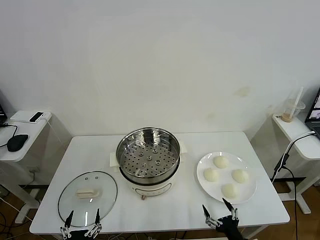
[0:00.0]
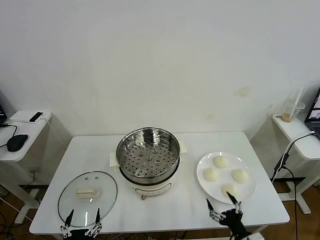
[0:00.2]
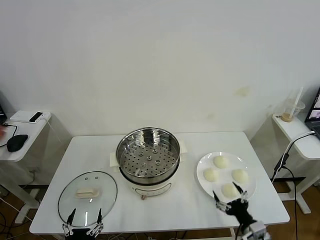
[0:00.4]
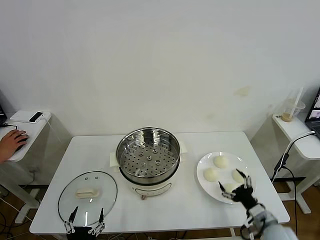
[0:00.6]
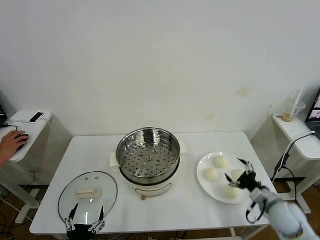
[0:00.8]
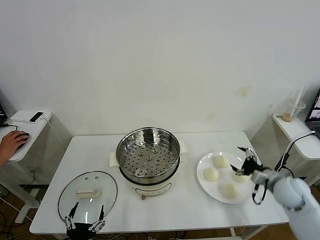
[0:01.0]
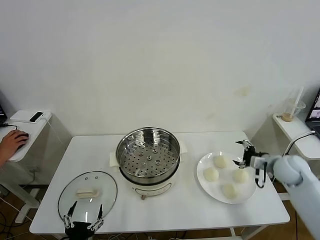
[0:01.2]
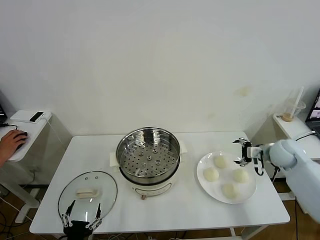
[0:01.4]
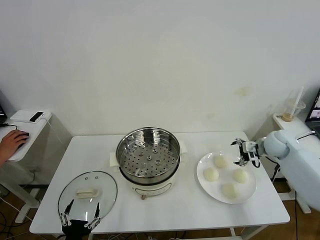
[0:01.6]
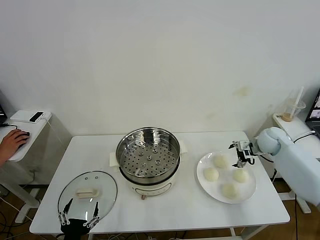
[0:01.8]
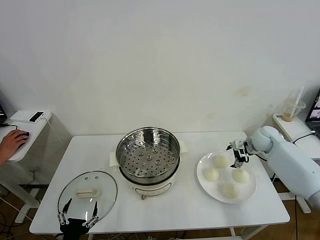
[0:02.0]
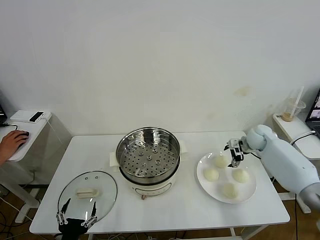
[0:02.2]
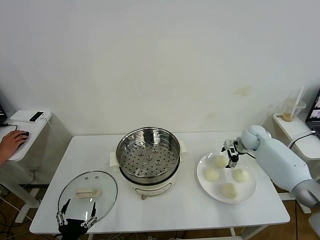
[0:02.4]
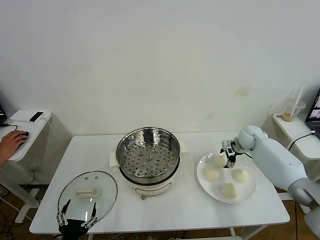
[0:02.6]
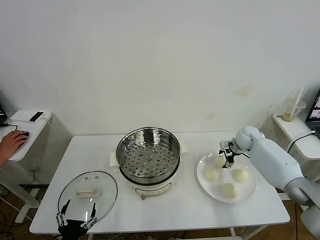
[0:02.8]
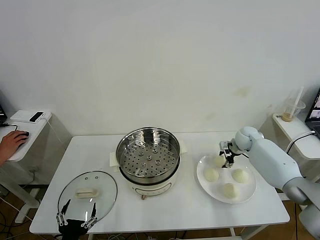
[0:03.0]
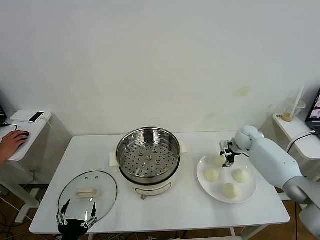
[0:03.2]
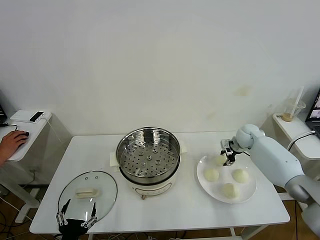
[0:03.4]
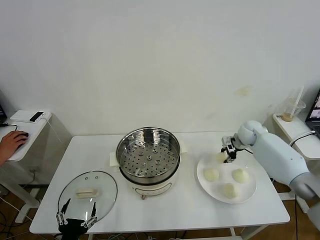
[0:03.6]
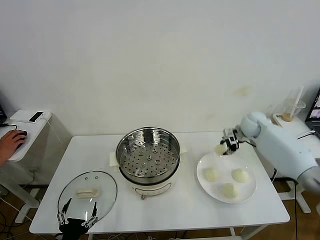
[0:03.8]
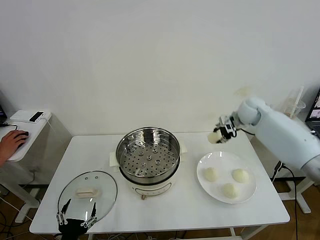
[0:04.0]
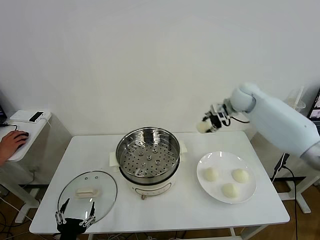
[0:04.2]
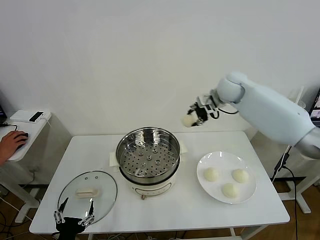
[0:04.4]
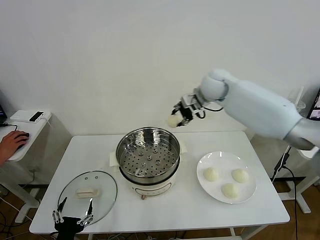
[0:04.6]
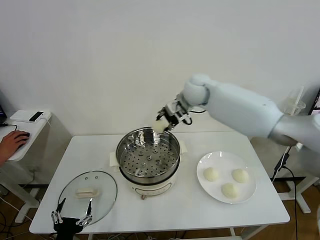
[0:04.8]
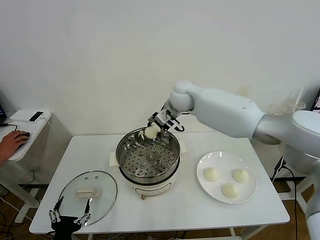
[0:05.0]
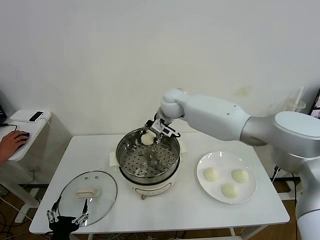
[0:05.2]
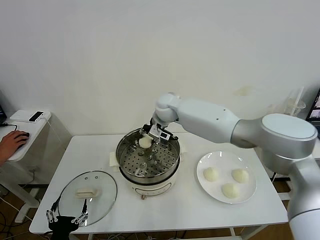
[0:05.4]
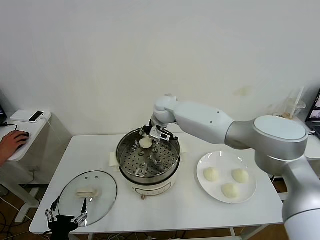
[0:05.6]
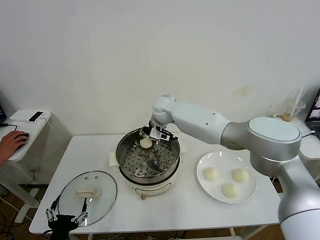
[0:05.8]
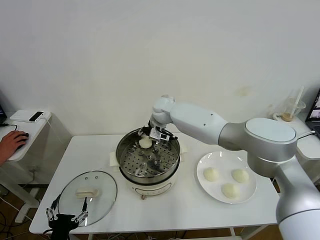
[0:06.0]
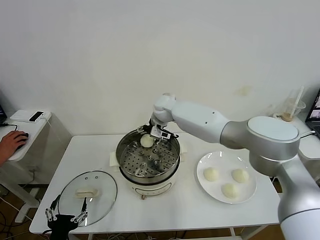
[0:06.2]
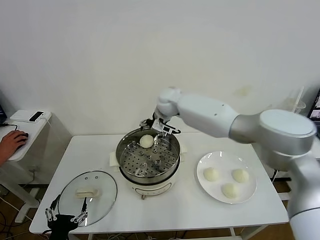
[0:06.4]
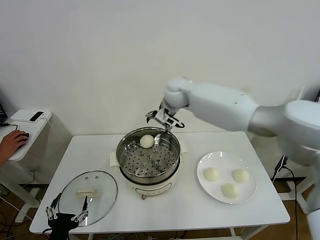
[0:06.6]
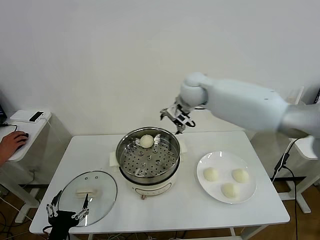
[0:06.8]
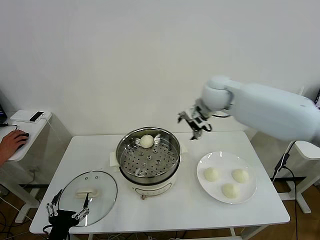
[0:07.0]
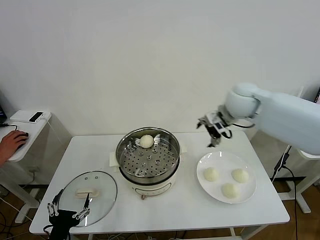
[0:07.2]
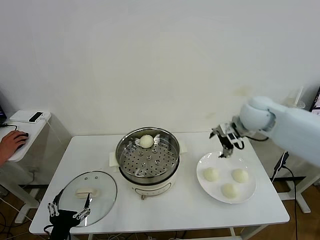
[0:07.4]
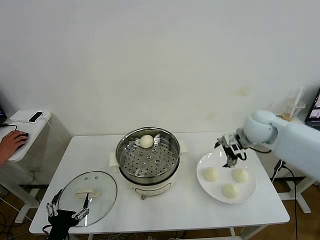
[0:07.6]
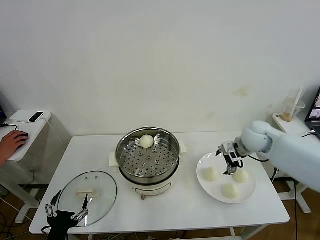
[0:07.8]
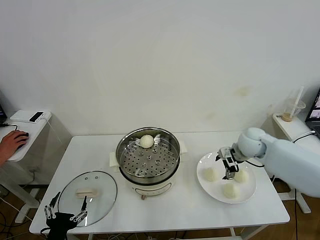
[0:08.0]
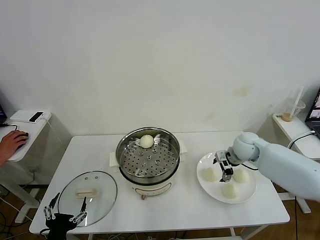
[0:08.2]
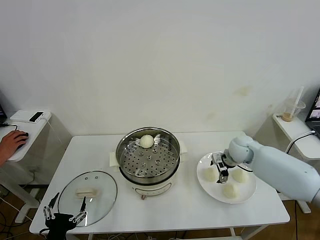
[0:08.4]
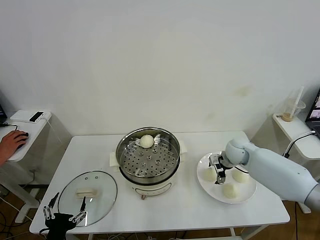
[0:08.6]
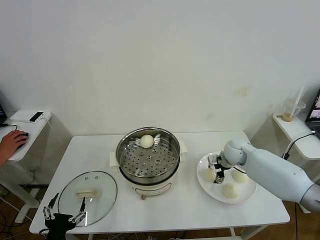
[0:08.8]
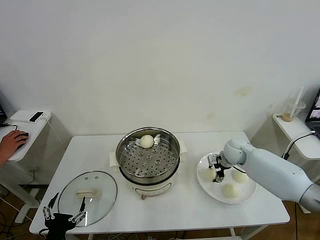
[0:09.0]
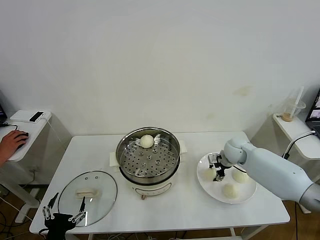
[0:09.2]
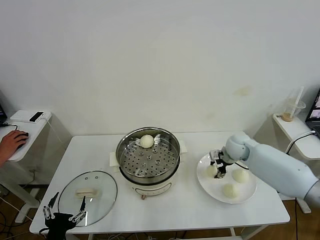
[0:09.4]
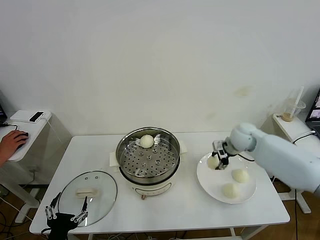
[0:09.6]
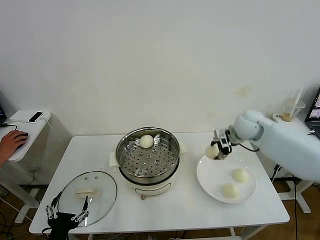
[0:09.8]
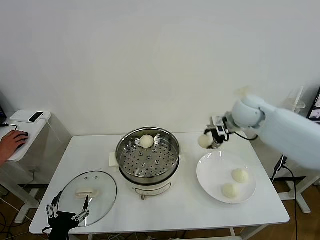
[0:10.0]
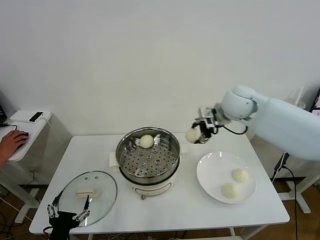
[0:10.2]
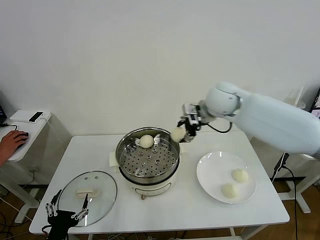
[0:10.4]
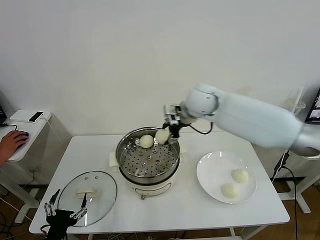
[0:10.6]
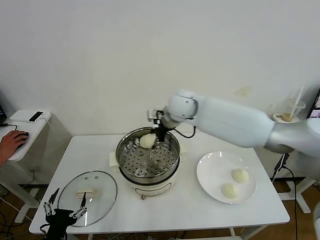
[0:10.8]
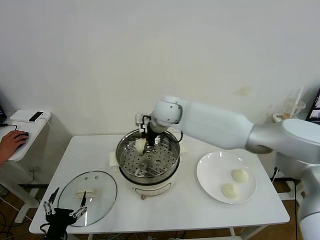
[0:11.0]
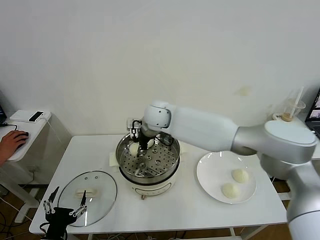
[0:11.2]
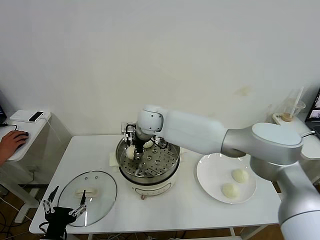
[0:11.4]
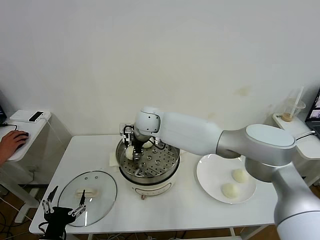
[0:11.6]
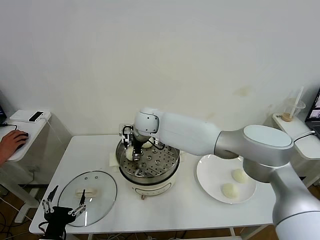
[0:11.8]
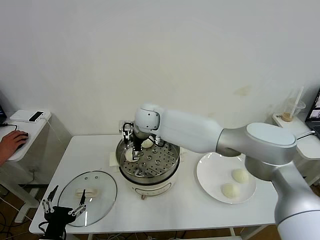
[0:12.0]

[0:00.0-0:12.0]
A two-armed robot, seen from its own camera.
Task of the whole recording: take steamed baozi put them in steamer then cover it.
Step, 0:00.0 to 0:03.0: Grasp the baozi in the plate with right gripper.
Step, 0:03.2 to 0:06.2: Place the baozi on the steamer with right gripper.
Step, 0:06.4 to 0:09.2: Grasp the baozi in the plate with right gripper.
0:01.6 to 0:03.0: The right gripper goes some 10 cm forward, downward and to the left, and closes up.
0:03.0 to 0:04.4: The right gripper goes some 25 cm upward and to the left, and closes its fingers.
0:04.4 to 0:06.0: The right gripper is displaced to the left and downward by roughly 25 cm.
0:06.0 to 0:07.6: The right gripper is displaced to the right and backward by about 30 cm, and opens.
0:07.6 to 0:09.0: The right gripper is displaced downward by roughly 15 cm, and closes.
0:09.0 to 0:10.4: The right gripper travels upward and to the left by roughly 25 cm.
0:10.4 to 0:12.0: The right gripper is displaced to the left and downward by roughly 25 cm, and opens.

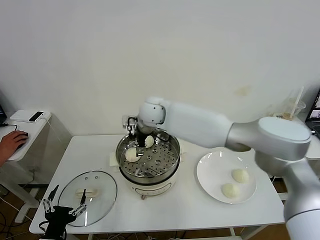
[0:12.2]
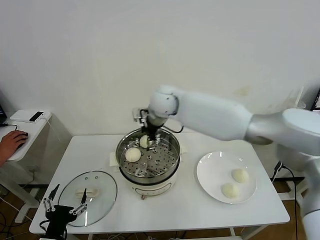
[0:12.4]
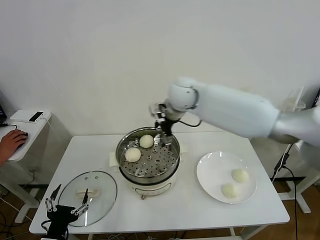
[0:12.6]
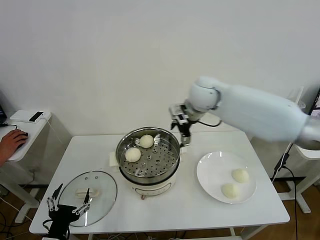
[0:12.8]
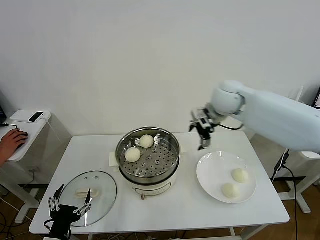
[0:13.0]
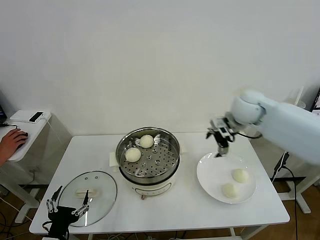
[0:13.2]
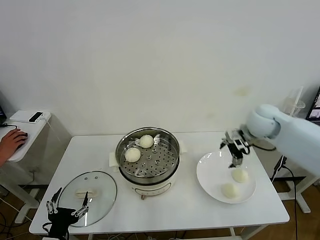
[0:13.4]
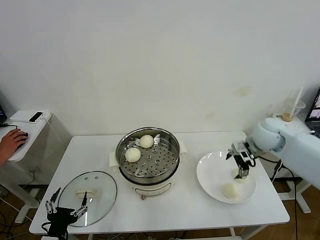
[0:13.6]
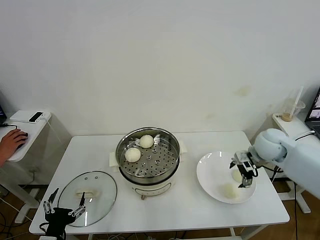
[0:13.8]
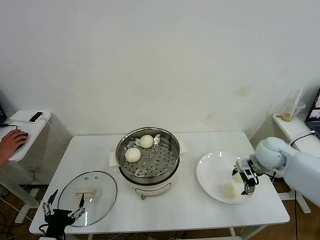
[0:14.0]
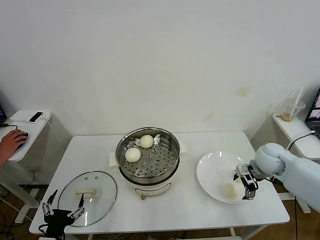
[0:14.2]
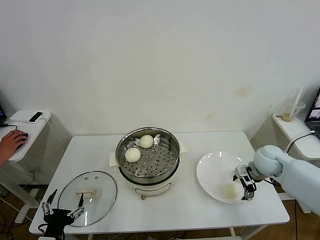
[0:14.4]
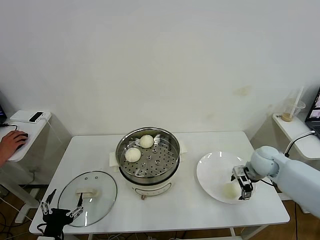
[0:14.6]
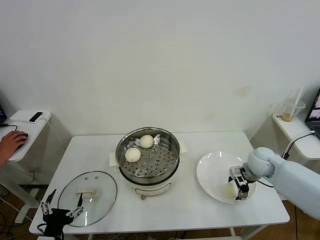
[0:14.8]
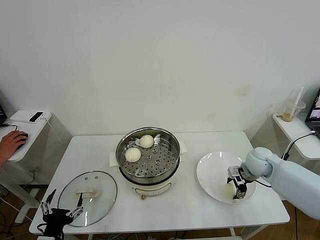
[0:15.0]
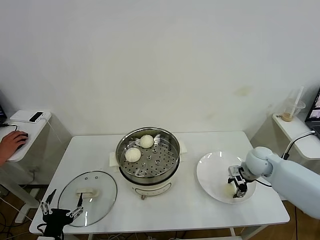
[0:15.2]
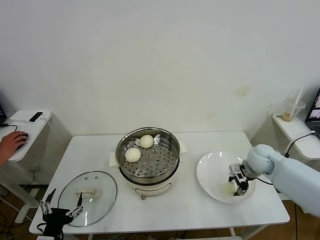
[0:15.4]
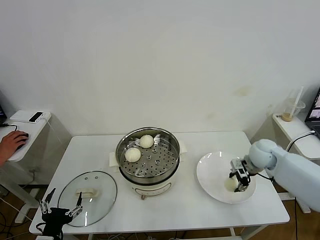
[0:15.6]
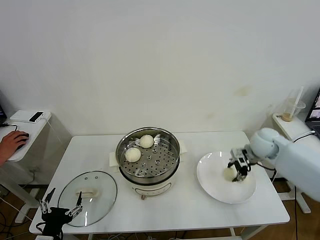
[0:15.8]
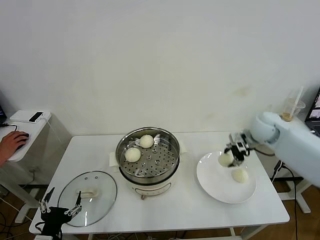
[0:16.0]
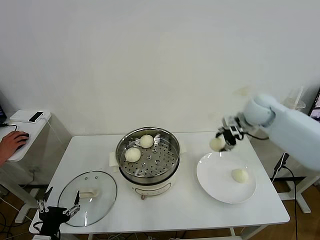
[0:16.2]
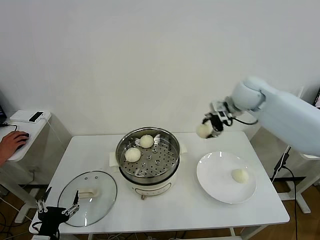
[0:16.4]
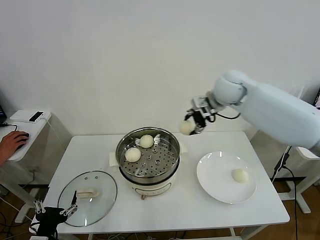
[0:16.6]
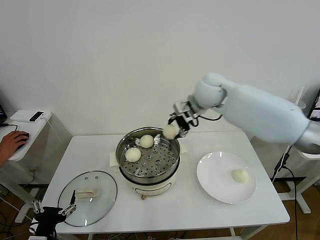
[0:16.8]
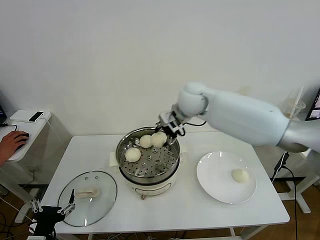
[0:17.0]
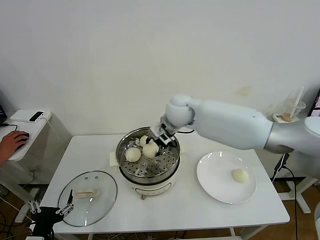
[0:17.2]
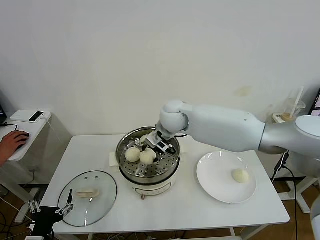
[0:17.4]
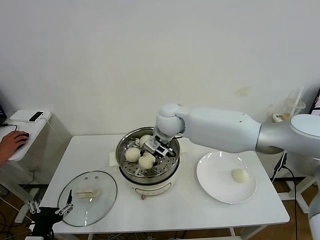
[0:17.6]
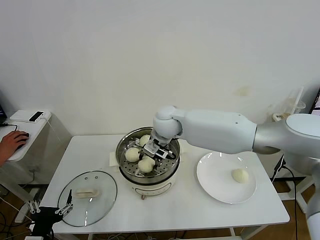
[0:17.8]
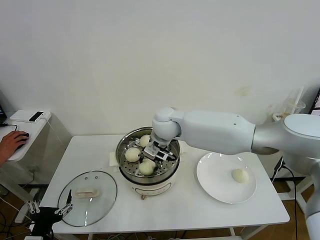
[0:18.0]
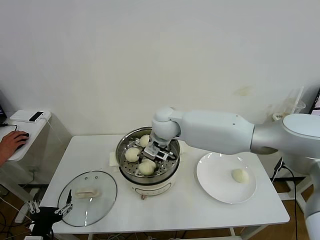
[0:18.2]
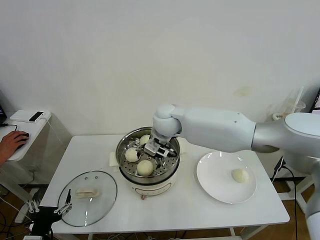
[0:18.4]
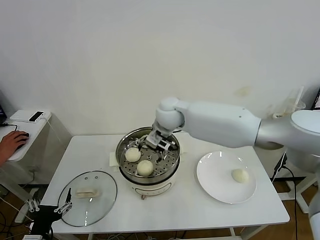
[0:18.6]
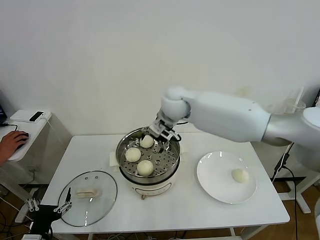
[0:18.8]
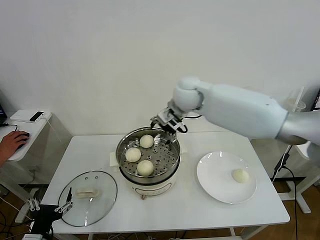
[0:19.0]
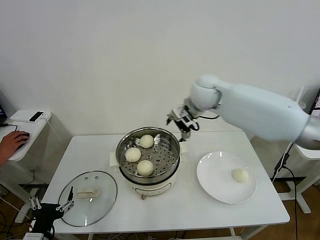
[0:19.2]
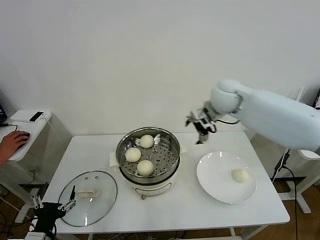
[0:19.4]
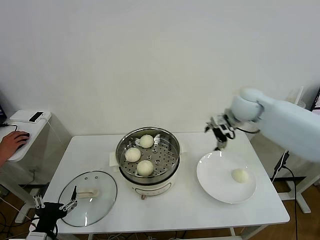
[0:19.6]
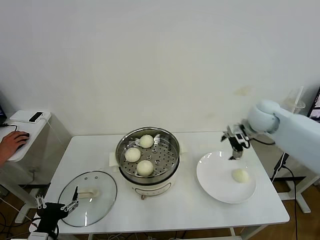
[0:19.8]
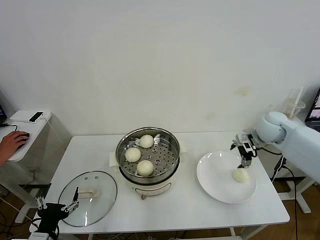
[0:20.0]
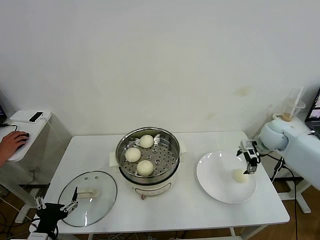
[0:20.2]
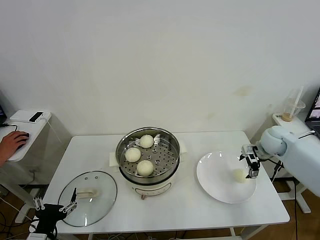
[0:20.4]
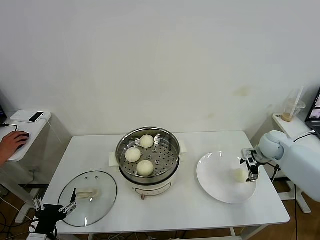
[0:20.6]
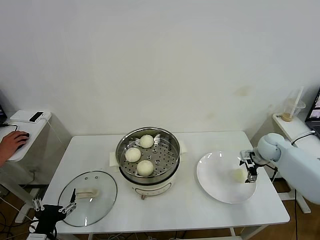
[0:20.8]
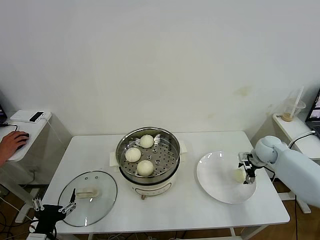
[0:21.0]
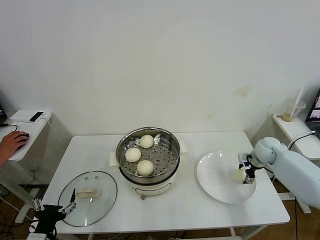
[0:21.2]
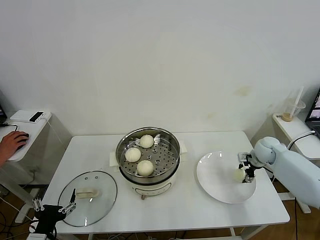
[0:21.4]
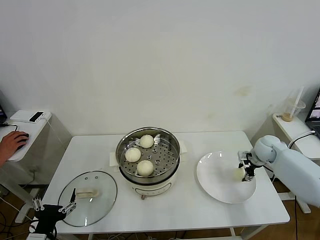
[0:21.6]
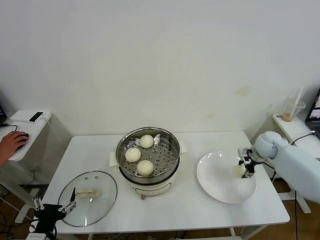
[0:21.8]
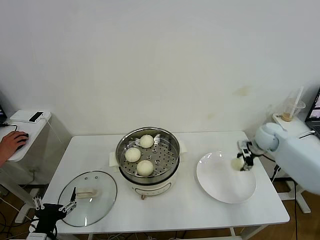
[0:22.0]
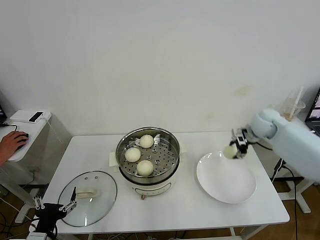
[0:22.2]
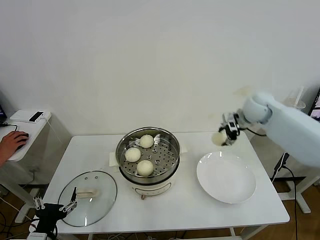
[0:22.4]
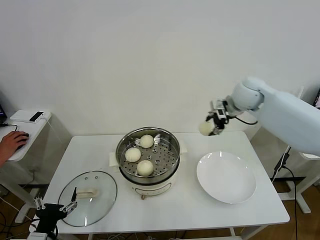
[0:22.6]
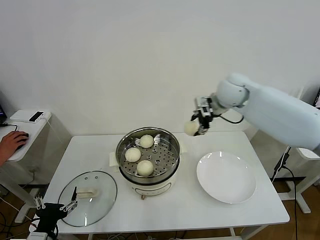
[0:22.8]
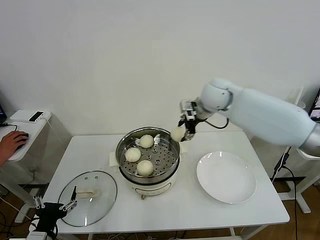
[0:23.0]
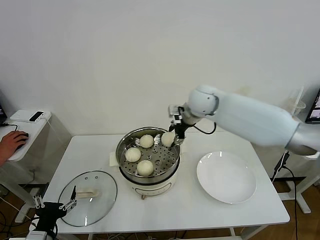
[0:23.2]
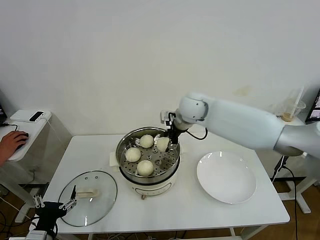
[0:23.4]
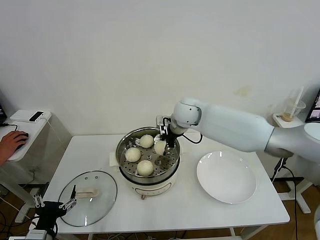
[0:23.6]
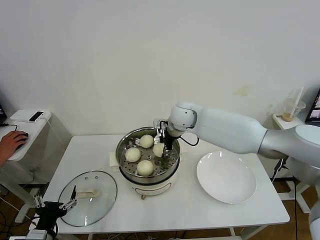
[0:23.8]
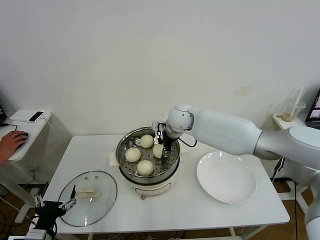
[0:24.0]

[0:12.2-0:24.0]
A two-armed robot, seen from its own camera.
Task of the whole recording: take steamed baozi put them in steamer then cover it.
Step, 0:12.2 to 0:15.2: Grasp the baozi in the plate with right gripper.
Step, 0:15.6 to 0:18.4: Place the baozi on the steamer with right gripper.
Step, 0:18.6 to 0:21.4: Grasp the baozi in the plate with right gripper.
0:12.2 to 0:13.6: The right gripper moves to the right, roughly 35 cm.
0:13.6 to 0:15.2: The right gripper travels downward by about 10 cm, and closes its fingers.
0:15.2 to 0:16.6: The right gripper shifts some 30 cm upward and to the left.
0:16.6 to 0:18.2: The right gripper travels to the left and downward by roughly 20 cm.
0:18.2 to 0:19.6: The right gripper moves to the right, about 25 cm, and opens up.
0:19.6 to 0:21.0: The right gripper moves downward and to the right, some 25 cm.
0:21.0 to 0:22.6: The right gripper heads upward and to the left, covering some 25 cm, and closes its fingers.
0:22.6 to 0:24.0: The right gripper travels to the left and downward by approximately 20 cm.
